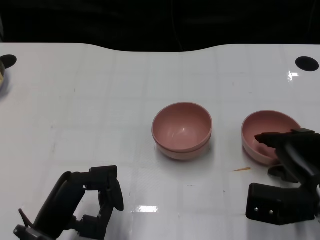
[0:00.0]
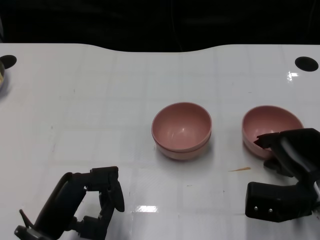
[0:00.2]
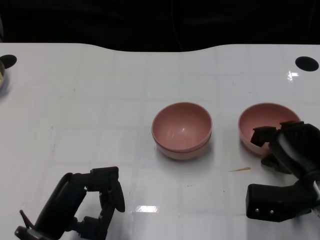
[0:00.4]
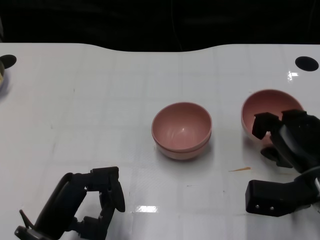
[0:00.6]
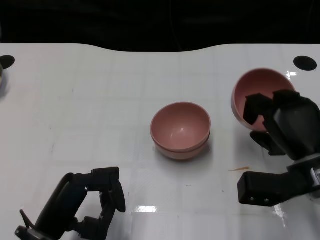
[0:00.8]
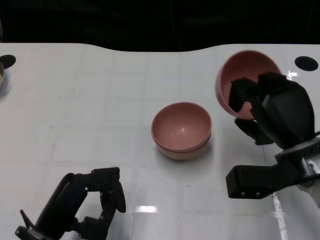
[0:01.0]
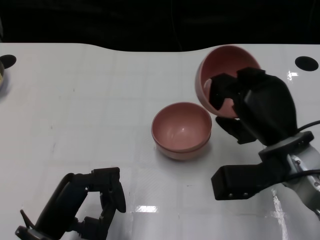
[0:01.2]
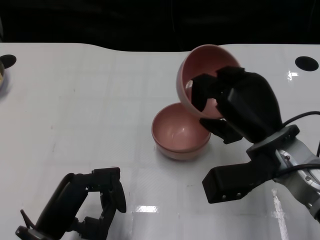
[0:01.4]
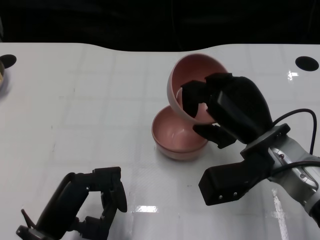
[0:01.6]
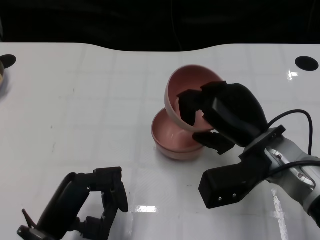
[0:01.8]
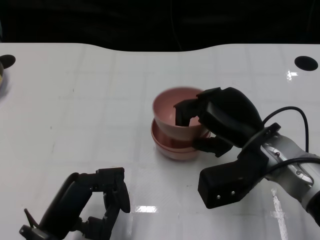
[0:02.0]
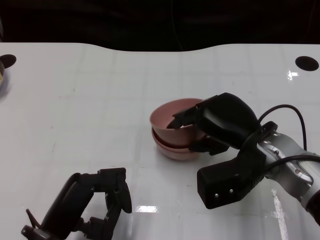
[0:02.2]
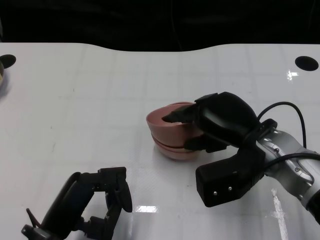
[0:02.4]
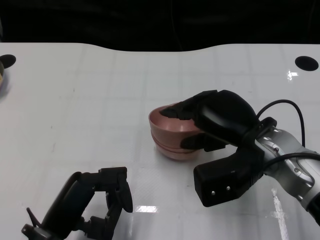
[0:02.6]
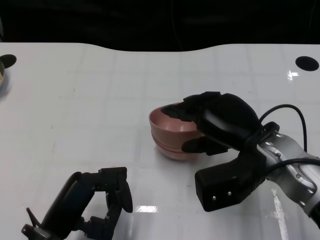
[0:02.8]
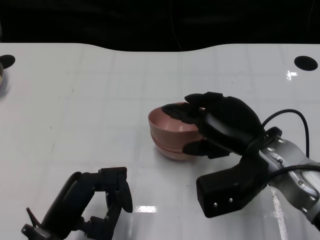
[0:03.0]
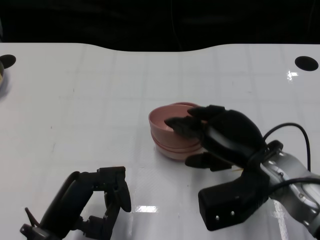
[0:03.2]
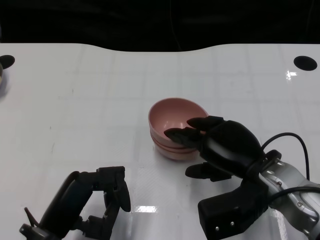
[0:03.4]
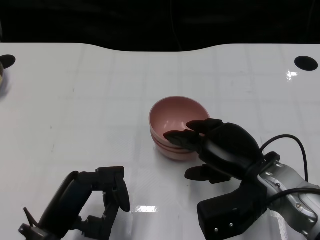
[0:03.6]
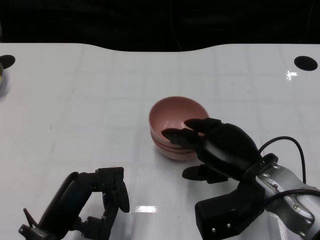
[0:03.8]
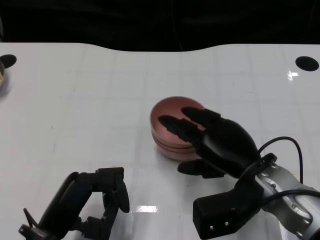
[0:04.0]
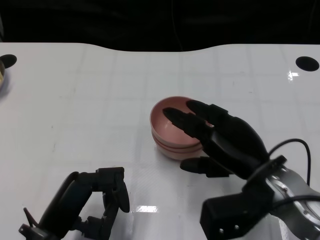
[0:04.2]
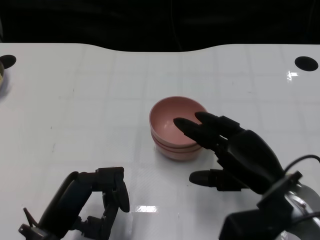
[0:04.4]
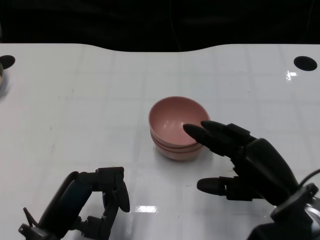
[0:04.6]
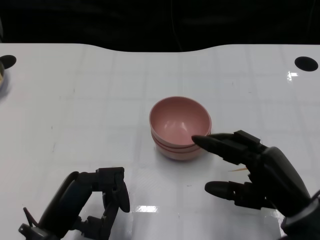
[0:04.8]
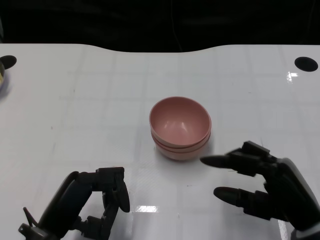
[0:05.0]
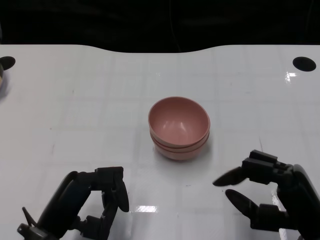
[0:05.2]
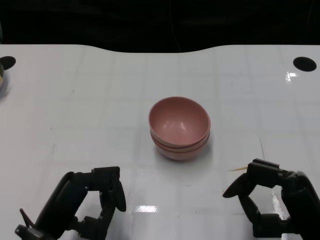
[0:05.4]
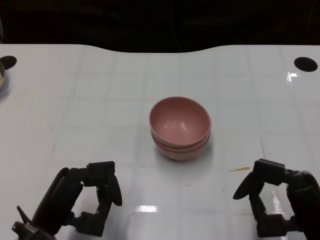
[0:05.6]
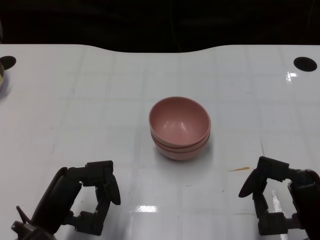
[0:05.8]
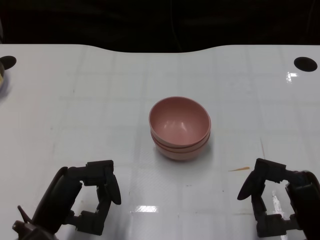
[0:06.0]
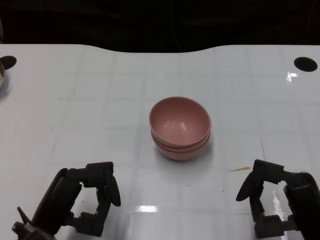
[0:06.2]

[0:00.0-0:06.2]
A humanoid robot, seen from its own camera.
Task of the whole recording: Pick up the bowl on one side of the table and place it on top of the middle bowl, then pick up the bowl on the other side of the table and place it on top of the middle bowls.
Step, 0:00.6 to 0:04.4: Place the bowl on the right onto the bowl in the middle with right gripper.
0:00.0 to 0:01.6: The right hand heads to the left and upward, covering some 10 cm.
0:03.2 to 0:04.6: The right hand moves approximately 5 cm.
0:04.6 to 0:06.2: The right hand goes some 5 cm backward.

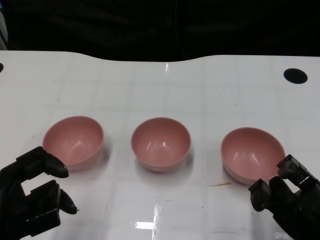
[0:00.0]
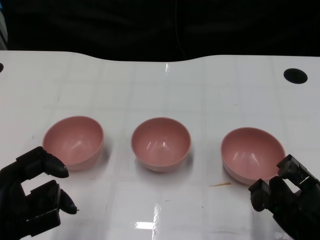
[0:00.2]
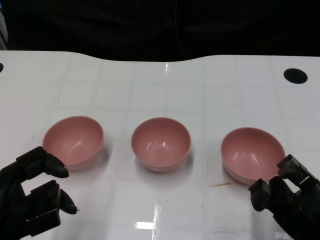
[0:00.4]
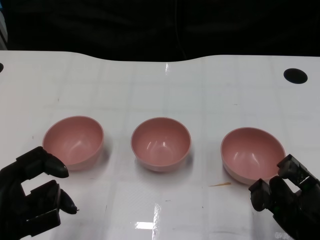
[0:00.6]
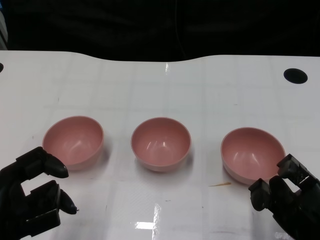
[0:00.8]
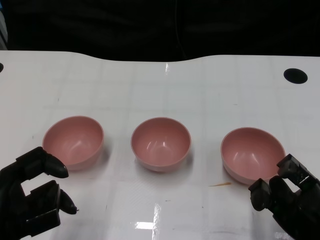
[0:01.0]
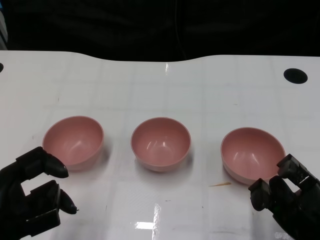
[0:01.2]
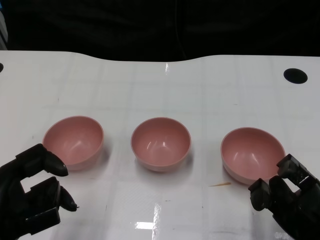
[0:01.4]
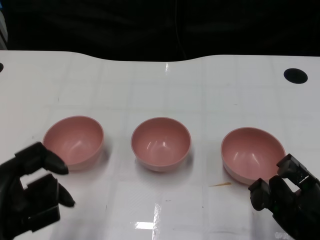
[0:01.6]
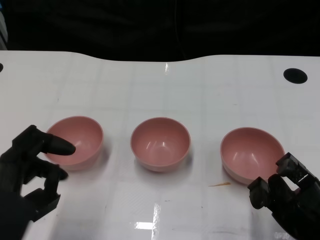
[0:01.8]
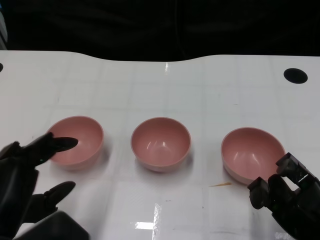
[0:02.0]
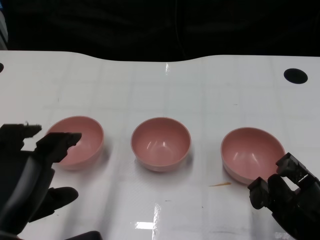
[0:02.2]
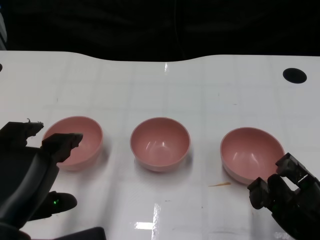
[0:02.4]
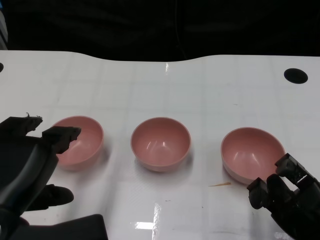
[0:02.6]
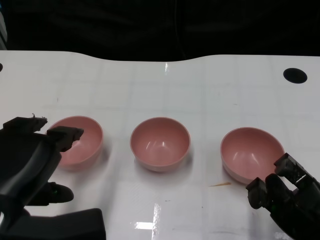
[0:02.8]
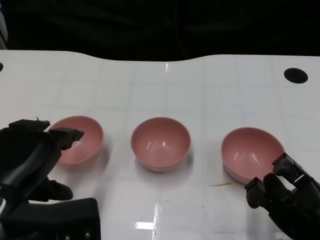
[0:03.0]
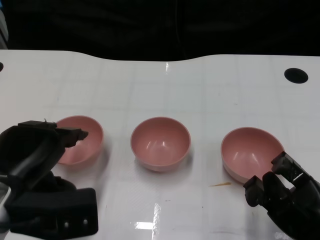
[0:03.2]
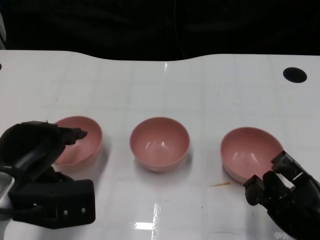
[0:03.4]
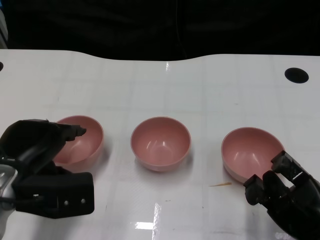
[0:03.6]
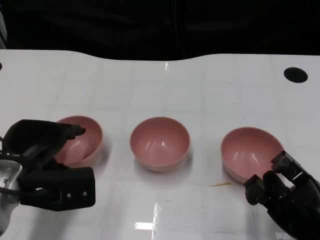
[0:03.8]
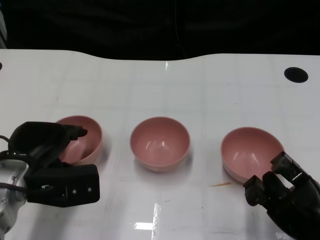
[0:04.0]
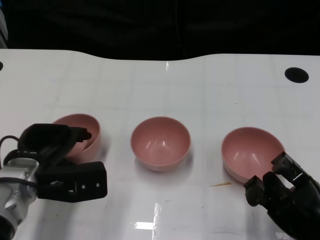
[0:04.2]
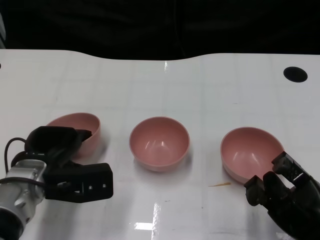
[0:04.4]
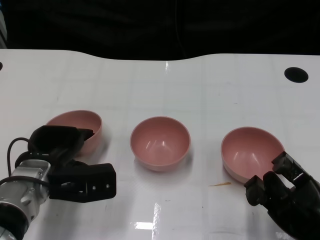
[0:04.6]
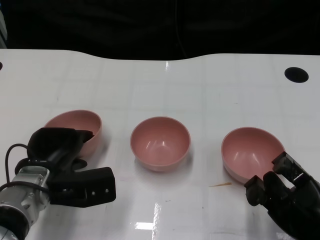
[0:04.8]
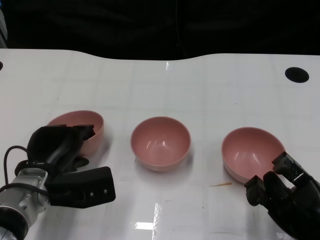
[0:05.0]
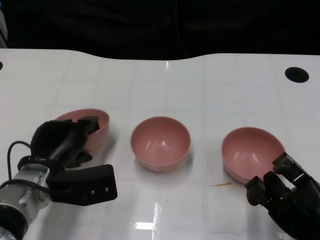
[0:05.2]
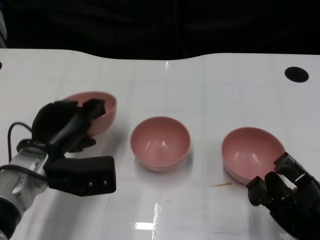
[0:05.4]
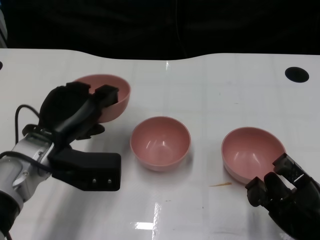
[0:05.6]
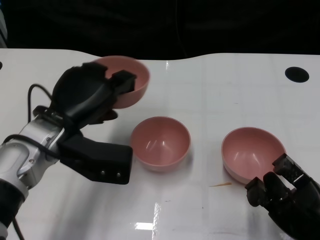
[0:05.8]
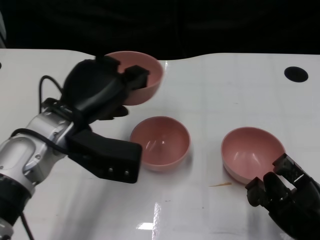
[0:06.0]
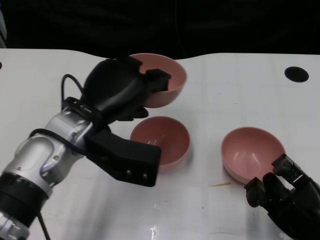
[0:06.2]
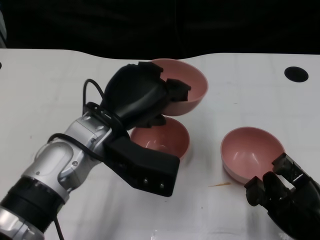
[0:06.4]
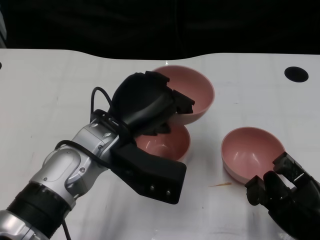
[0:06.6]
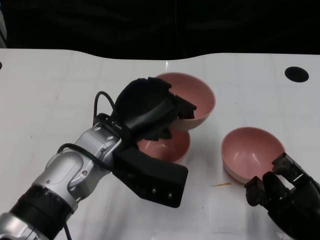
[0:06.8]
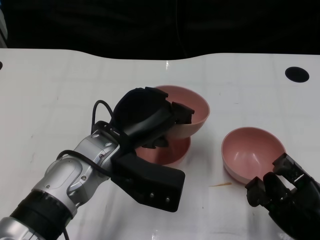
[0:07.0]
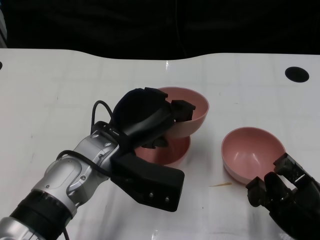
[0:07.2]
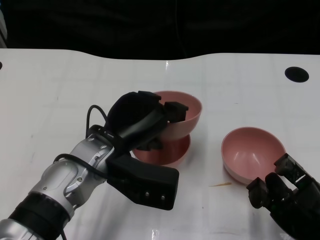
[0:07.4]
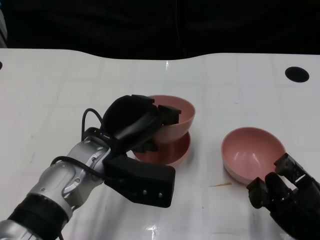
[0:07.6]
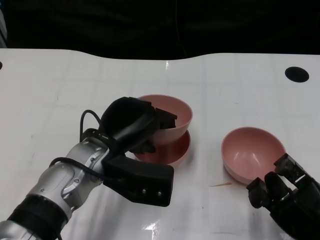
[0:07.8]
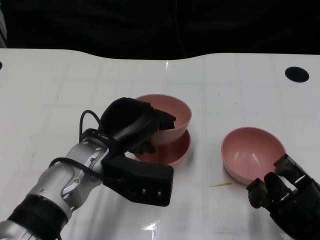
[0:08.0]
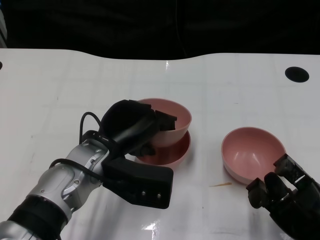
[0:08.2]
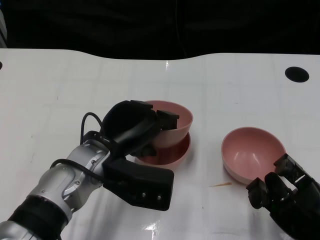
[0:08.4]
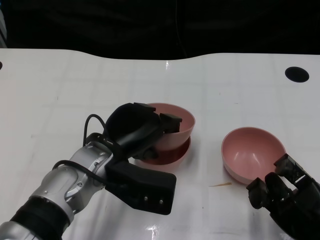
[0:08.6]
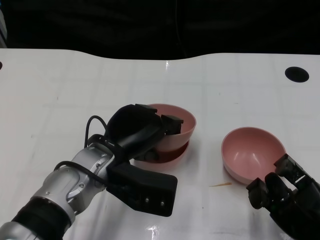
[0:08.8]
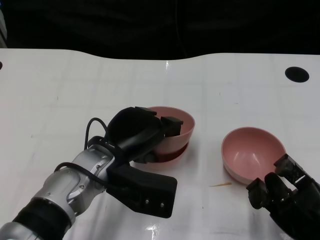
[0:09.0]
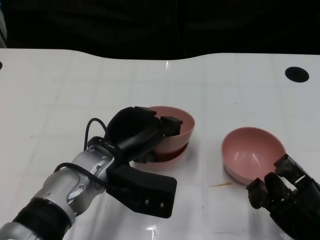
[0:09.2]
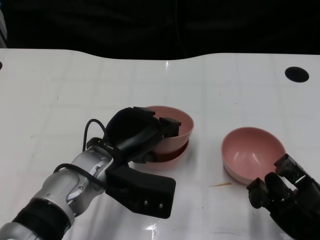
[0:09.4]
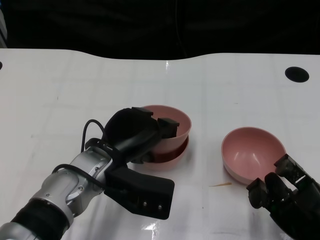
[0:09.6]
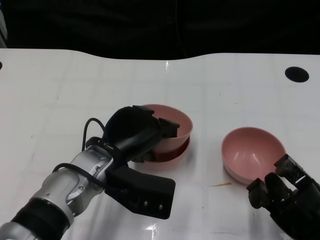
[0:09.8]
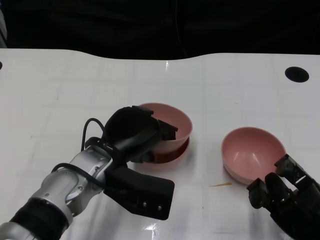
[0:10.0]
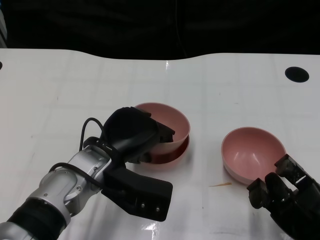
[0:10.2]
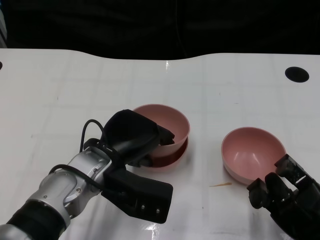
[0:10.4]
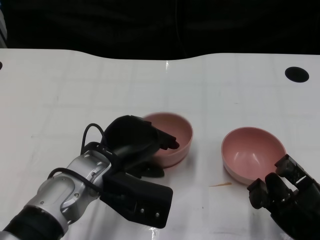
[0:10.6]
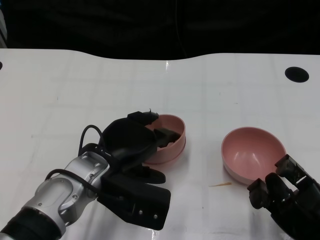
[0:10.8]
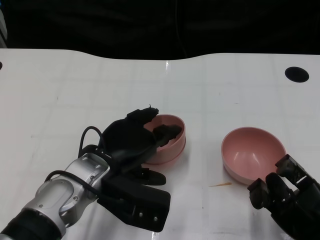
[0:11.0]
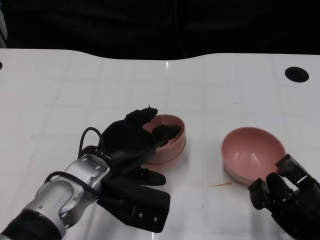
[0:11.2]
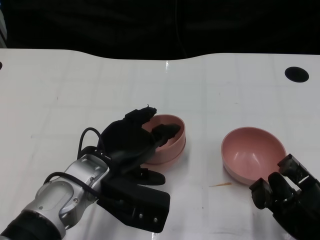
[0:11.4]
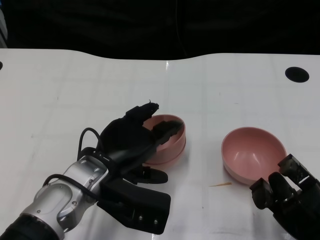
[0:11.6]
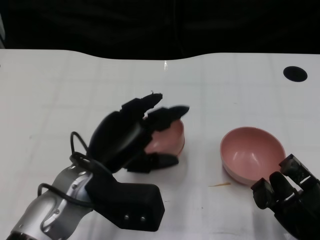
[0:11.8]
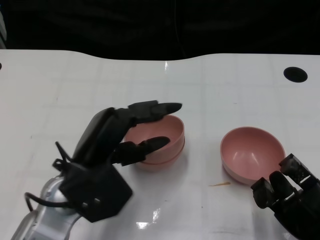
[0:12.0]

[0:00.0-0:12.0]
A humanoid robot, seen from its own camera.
Task of the whole recording: Pick up the bowl on one side of the table and place it on top of the middle bowl, then pick up the bowl on the other side of the table and place it on top of the middle bowls.
Step, 0:01.8 to 0:05.2: Grasp the bowl on the left with the left gripper.
Step, 0:05.4 to 0:11.6: Place the bowl on the left onto the bowl in the middle with left gripper.
0:01.6 to 0:03.0: The left hand changes place by roughly 5 cm.
0:03.0 to 0:04.4: The left hand moves forward and downward, some 15 cm.
0:04.4 to 0:06.0: The left hand heads upward, covering about 10 cm.
0:06.0 to 0:07.6: The left hand moves roughly 5 cm.
0:07.6 to 0:10.4: There are only small adjustments of the hands.
0:10.4 to 0:12.0: The left hand ends up some 5 cm from where it was.

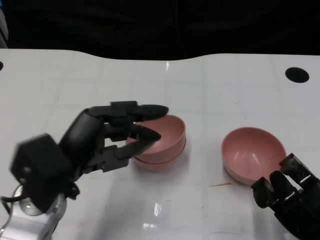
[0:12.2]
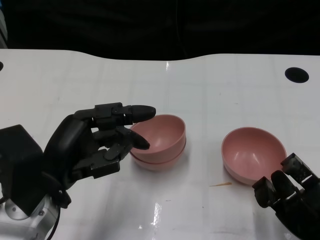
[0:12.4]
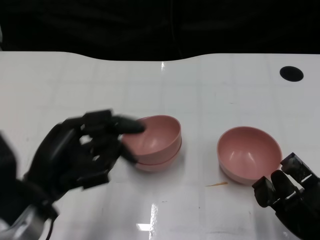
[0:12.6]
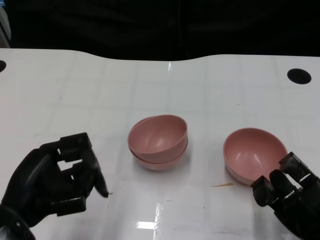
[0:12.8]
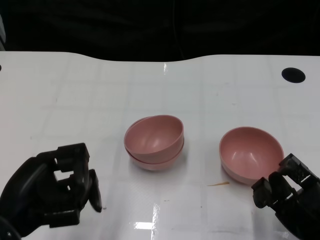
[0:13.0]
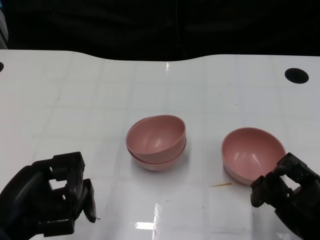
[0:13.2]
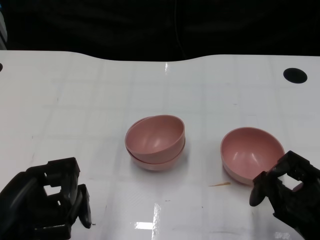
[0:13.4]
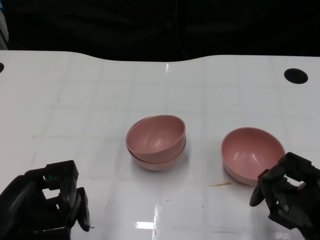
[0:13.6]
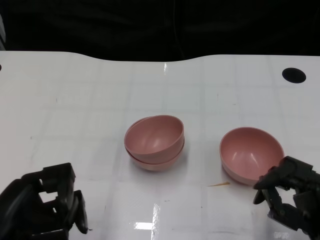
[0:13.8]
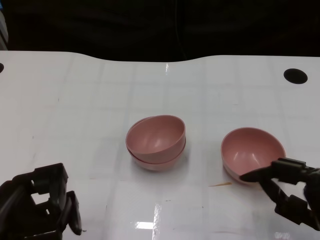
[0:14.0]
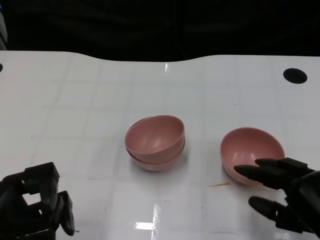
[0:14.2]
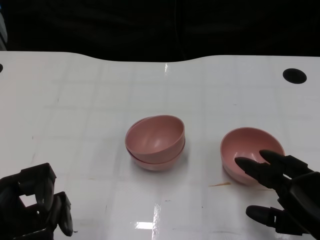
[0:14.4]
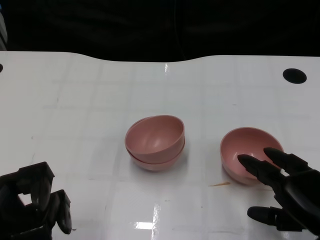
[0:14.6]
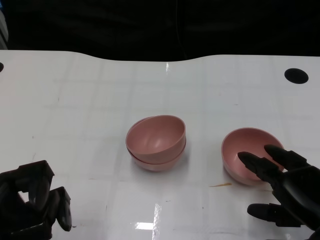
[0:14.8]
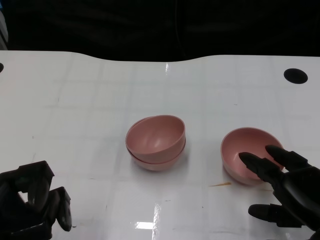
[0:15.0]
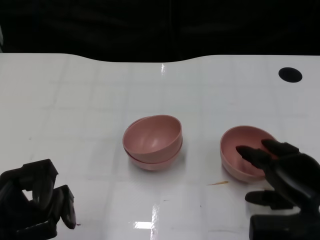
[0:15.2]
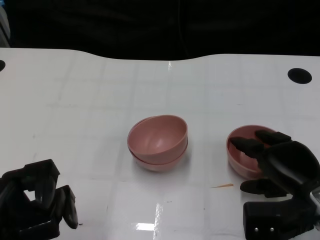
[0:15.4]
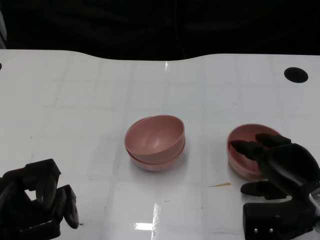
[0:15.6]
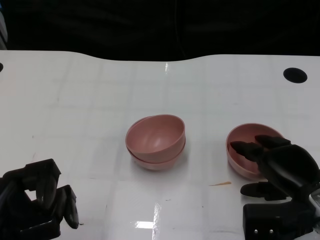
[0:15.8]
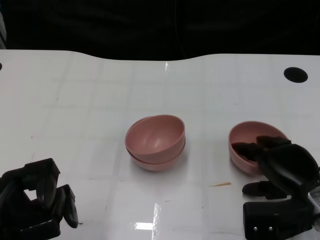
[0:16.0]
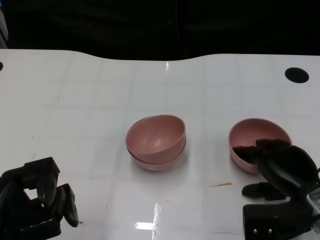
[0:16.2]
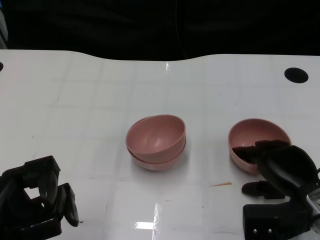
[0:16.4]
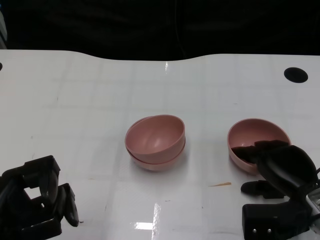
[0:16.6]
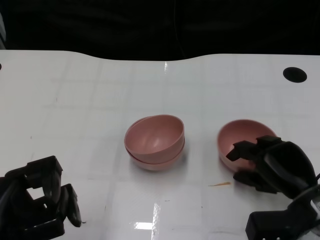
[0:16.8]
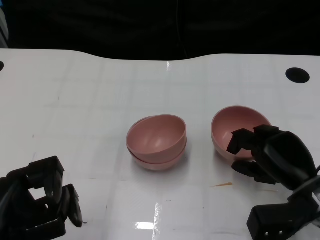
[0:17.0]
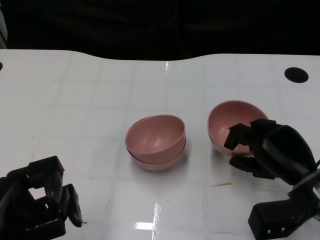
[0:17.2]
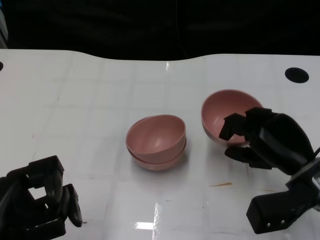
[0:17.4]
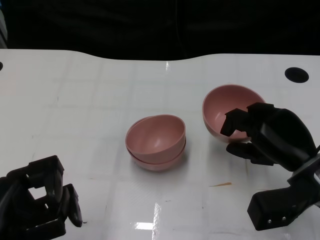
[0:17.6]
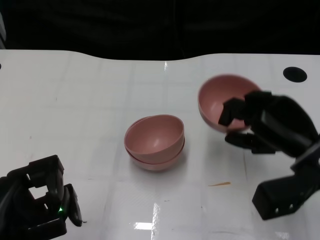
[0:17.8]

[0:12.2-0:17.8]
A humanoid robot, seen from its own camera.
Task of the whole recording: Pick up the bowl on one side of the table and place it on top of the middle bowl, then pick up the bowl on the other side of the table and place it on top of the middle bowls.
Step, 0:12.2 to 0:17.2: Grasp the bowl on the right with the right gripper.
0:12.2 to 0:13.6: The left hand moves backward and to the left, some 10 cm.
0:15.0 to 0:16.4: The right hand goes about 5 cm forward.
0:16.4 to 0:17.8: The right hand heads upward, covering some 5 cm.
